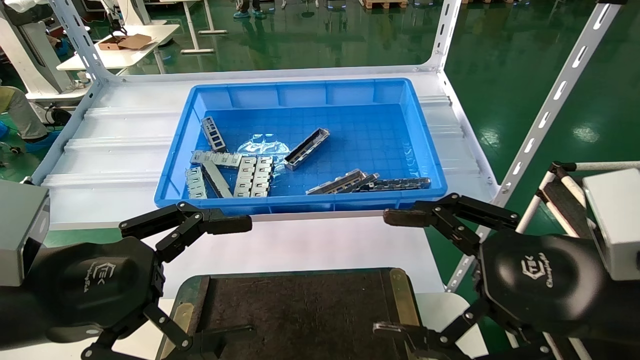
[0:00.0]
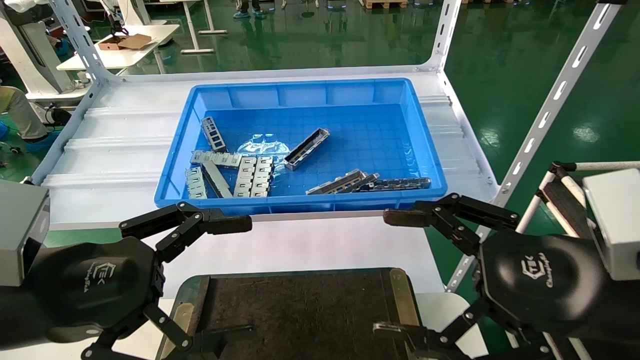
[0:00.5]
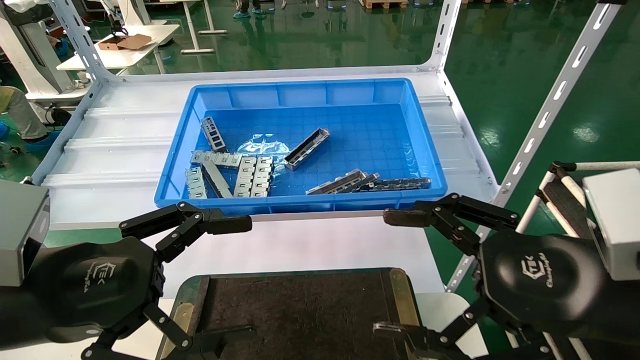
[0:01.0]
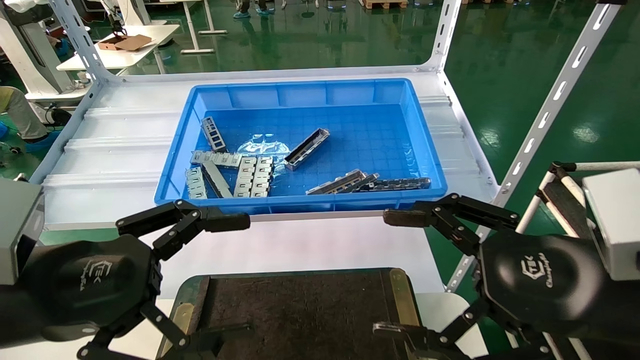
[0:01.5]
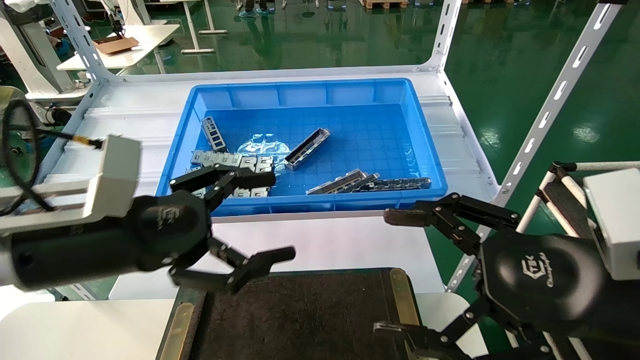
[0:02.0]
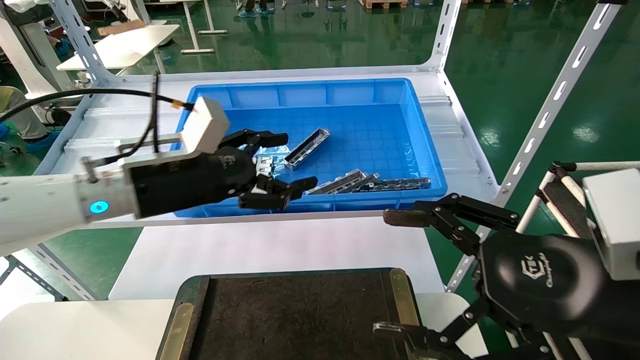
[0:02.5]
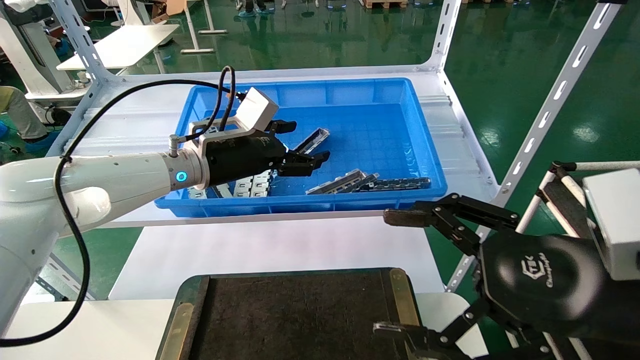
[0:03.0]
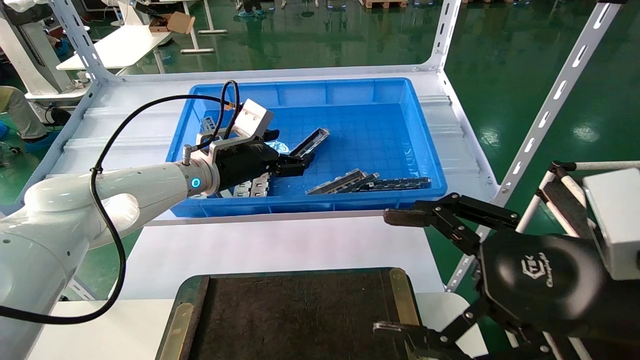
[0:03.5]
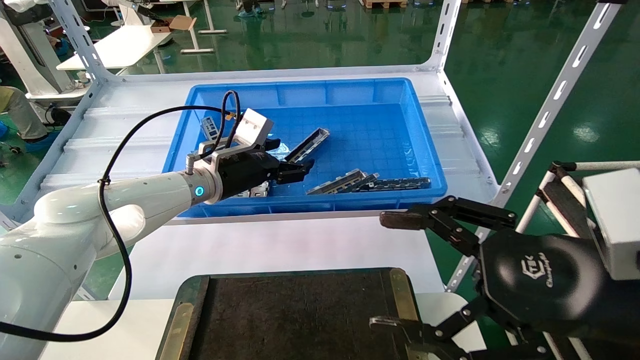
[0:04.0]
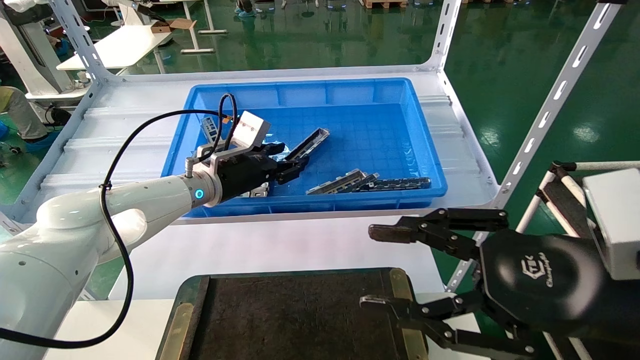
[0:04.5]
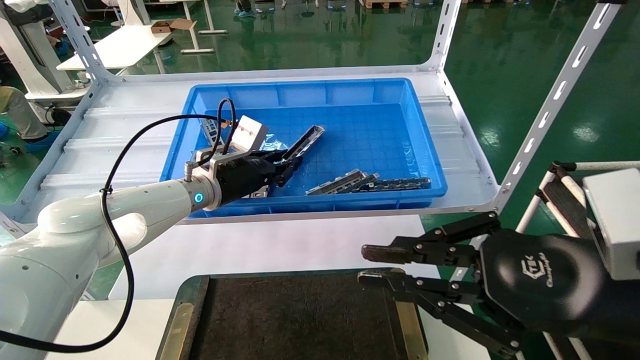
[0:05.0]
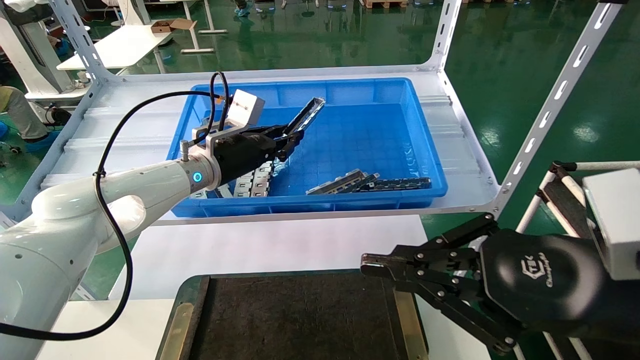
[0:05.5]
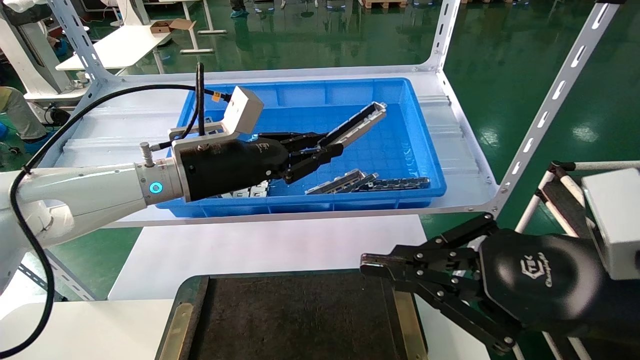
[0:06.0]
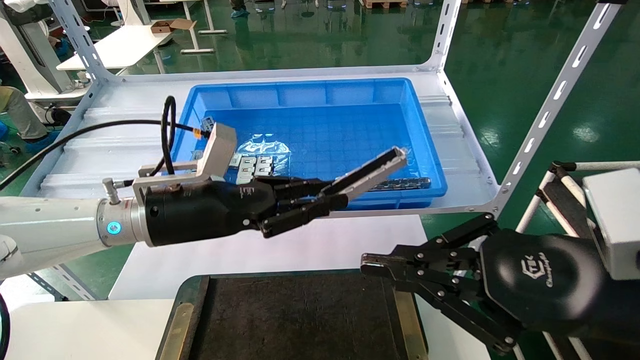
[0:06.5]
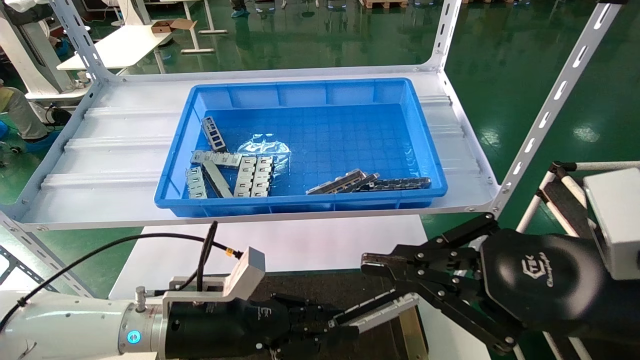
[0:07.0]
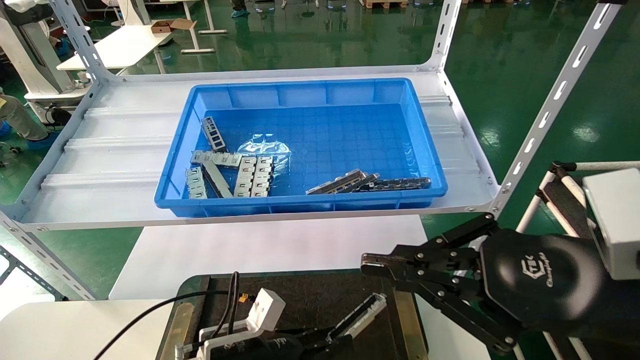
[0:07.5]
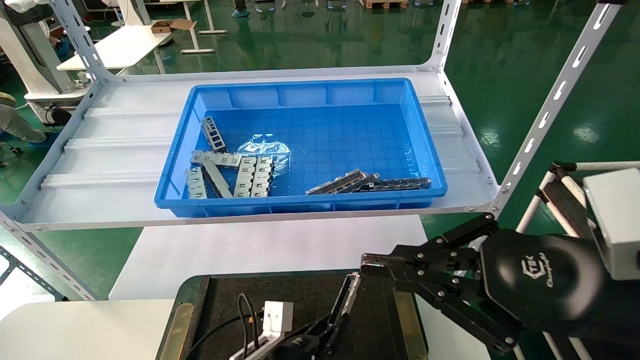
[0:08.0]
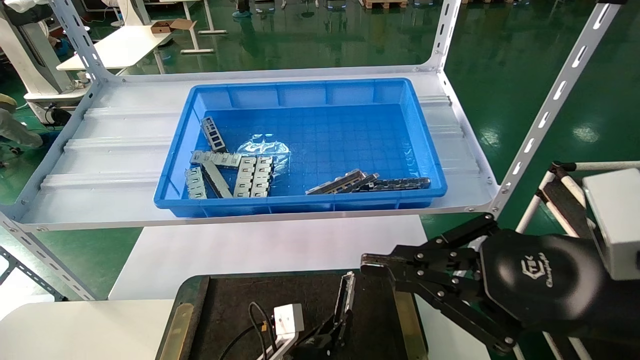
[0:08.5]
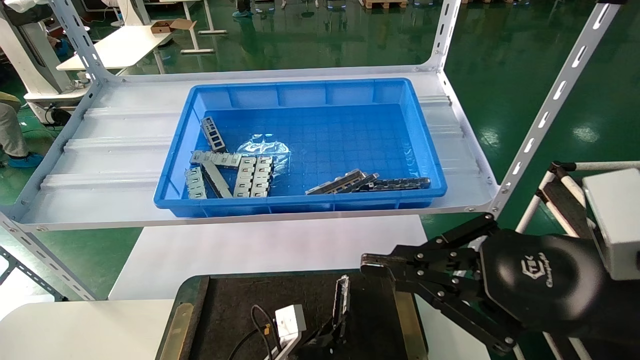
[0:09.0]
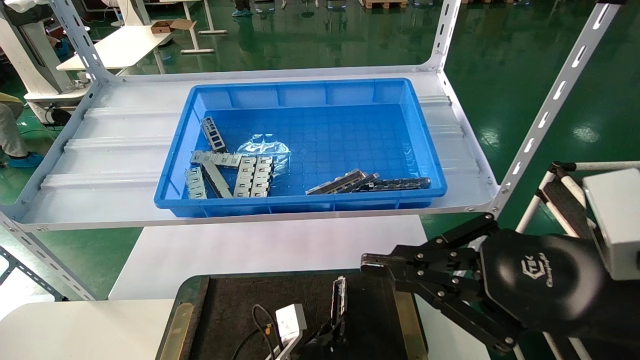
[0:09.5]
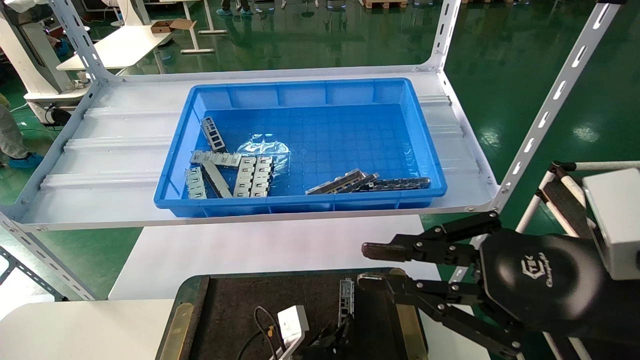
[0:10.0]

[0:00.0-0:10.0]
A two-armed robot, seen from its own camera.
Task of the whole recording: Grasp the part with one hand and place it on the black container.
Step, 0:02.0 to 0:06.0: Pick up the front USB bracket from the feeding area.
0:00.0 to 0:02.0: The left gripper shifts approximately 5 cm forward.
0:02.0 to 0:04.0: The left gripper travels forward by roughly 25 cm.
0:04.0 to 0:06.0: The left gripper goes some 5 cm backward, and closes its fingers. Meanwhile the right gripper closes its fingers.
0:06.0 to 0:08.0: The left gripper goes approximately 35 cm downward.
0:08.0 to 0:10.0: The left gripper travels to the right by roughly 5 cm.

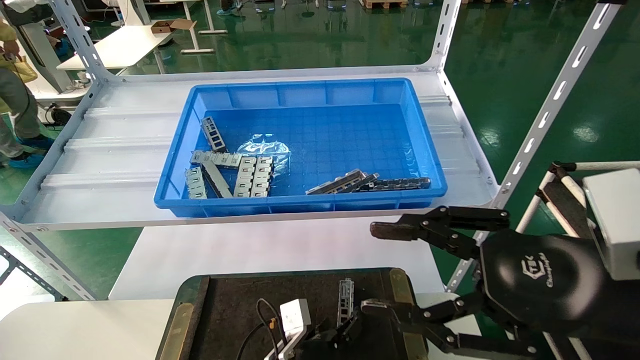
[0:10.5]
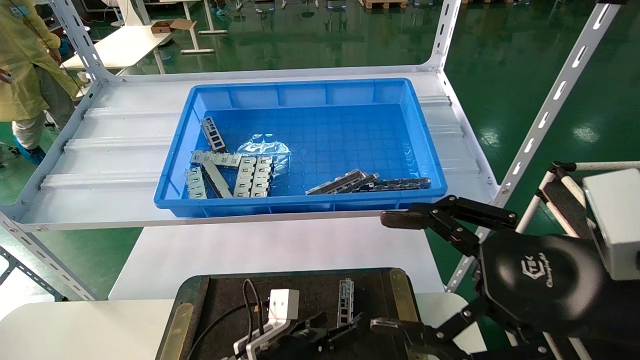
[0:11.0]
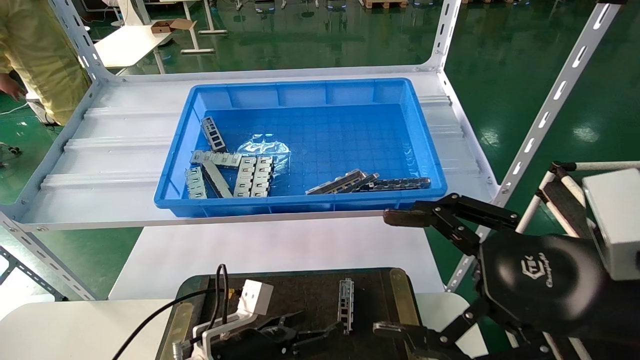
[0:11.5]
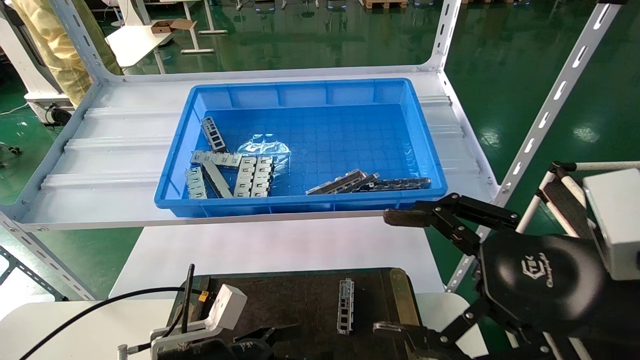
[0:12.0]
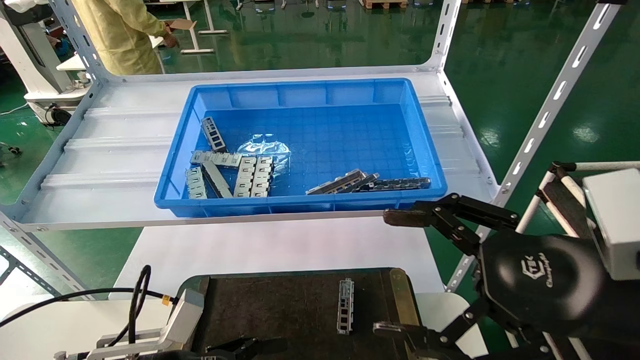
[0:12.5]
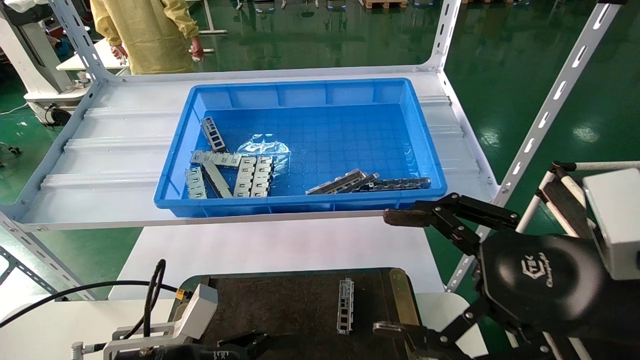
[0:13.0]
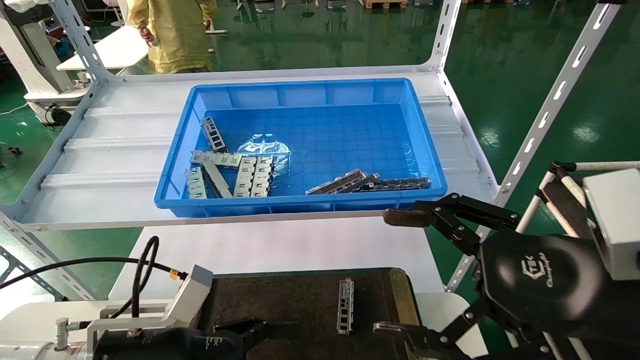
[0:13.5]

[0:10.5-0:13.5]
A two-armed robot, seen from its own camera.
Task of the whole recording: Grasp the part with one hand and place it on the black container.
0:10.5 to 0:12.0: The right gripper opens its fingers. Meanwhile the left gripper moves to the left, upward and backward, some 20 cm, and opens.
0:12.0 to 0:13.5: The left gripper travels upward by some 5 cm.

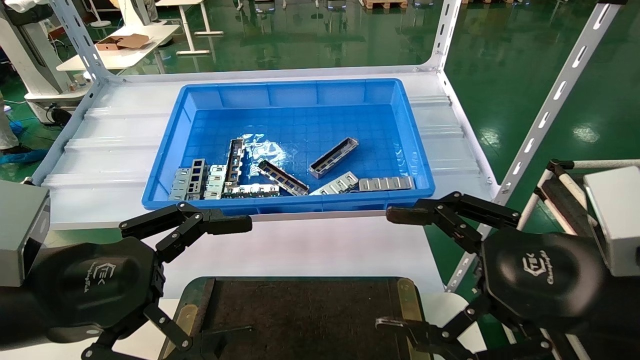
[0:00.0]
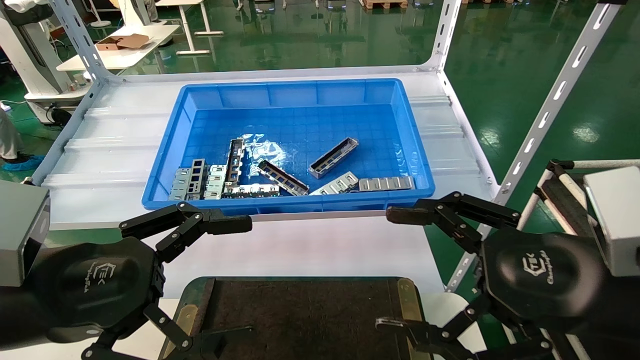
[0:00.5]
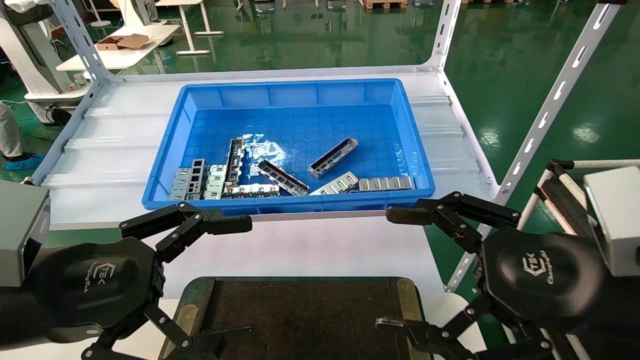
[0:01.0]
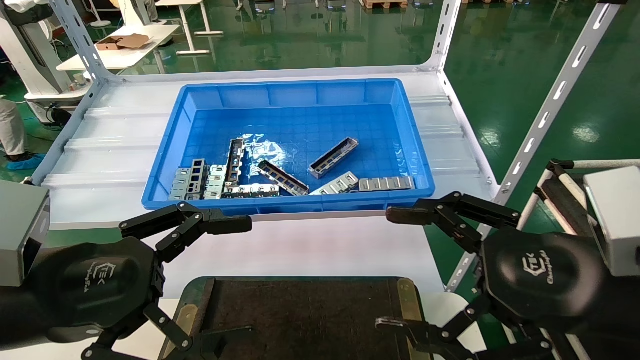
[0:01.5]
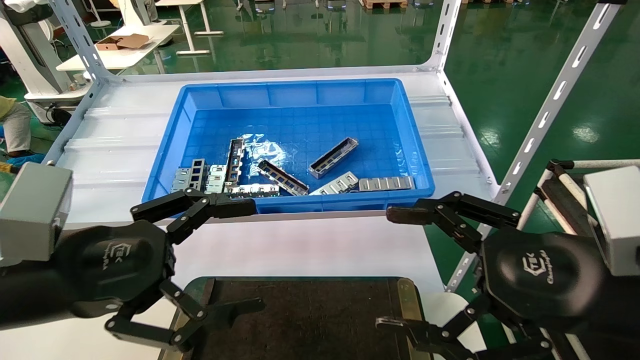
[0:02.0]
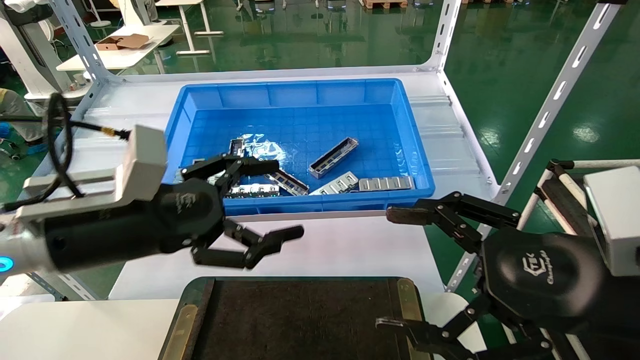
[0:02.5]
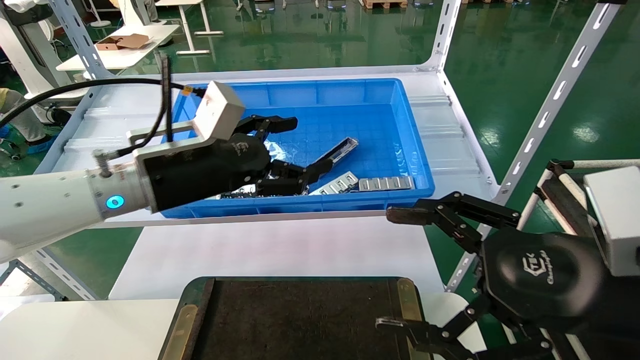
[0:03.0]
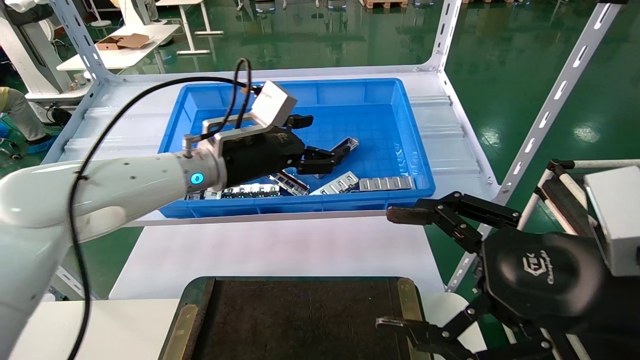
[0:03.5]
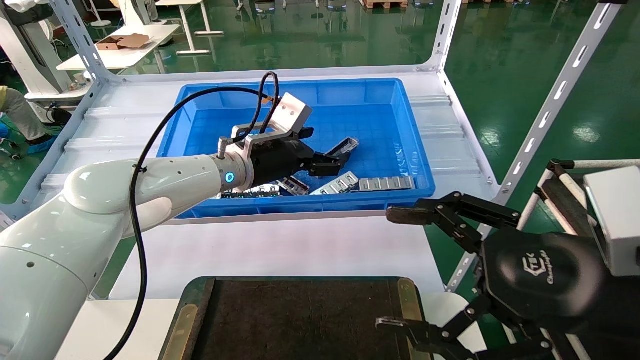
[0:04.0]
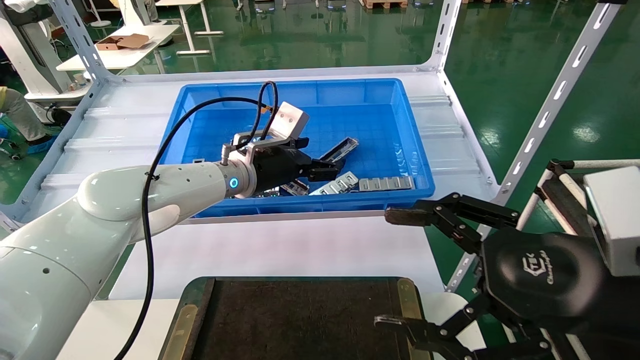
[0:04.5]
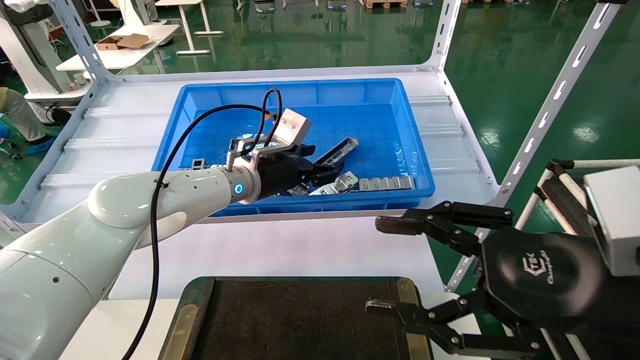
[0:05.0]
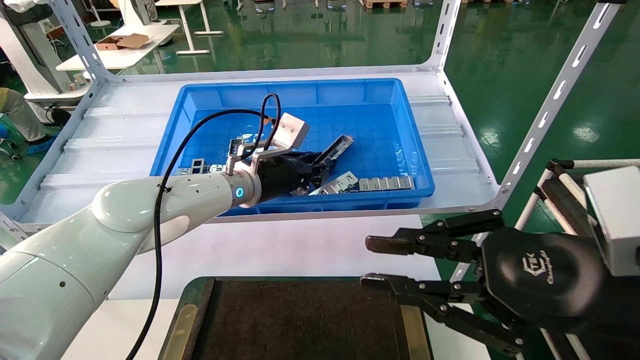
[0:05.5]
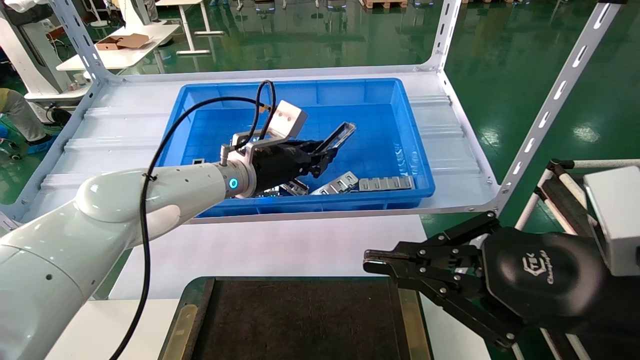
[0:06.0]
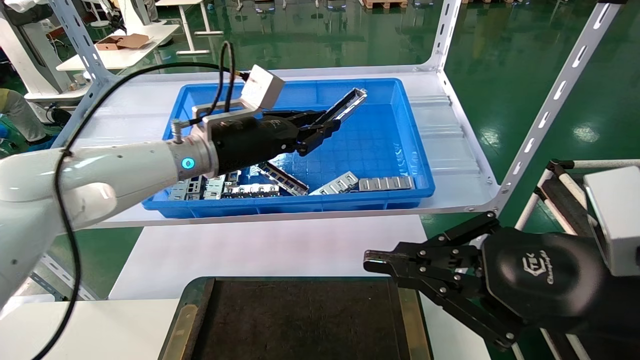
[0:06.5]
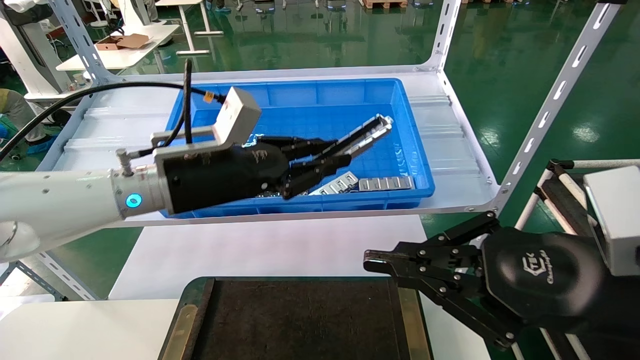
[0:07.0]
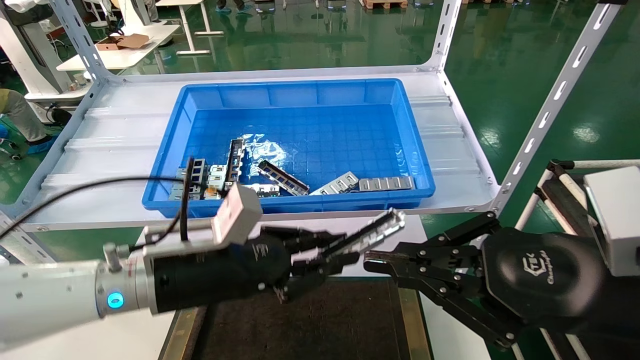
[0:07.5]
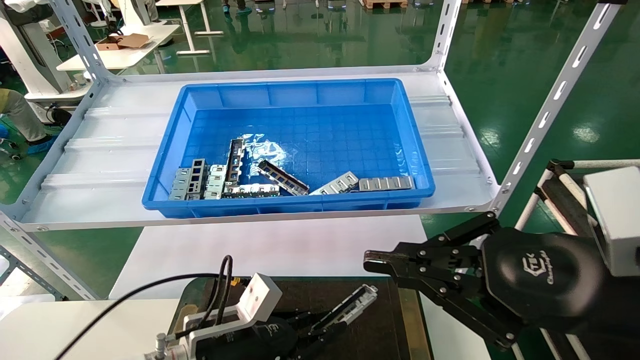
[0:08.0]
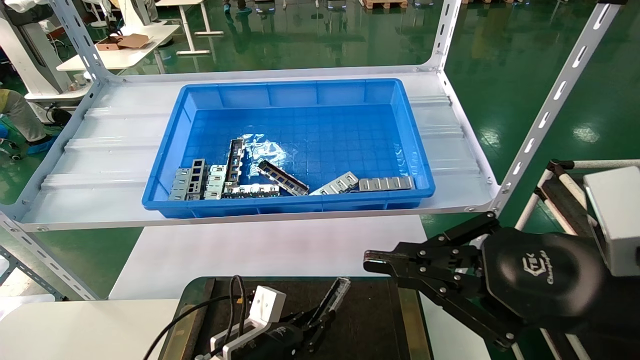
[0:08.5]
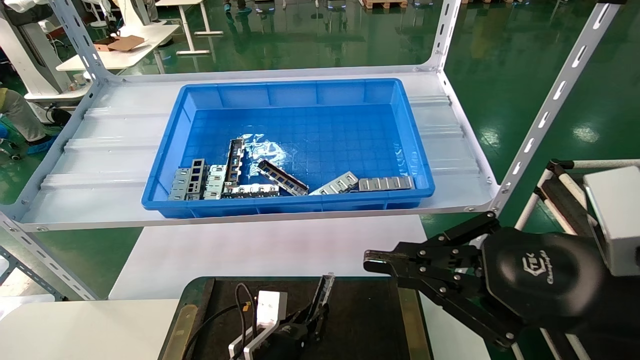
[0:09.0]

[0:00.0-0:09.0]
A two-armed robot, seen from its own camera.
Task of the whole recording: Grasp the part with one hand and place it on the black container.
Step, 0:02.0 to 0:05.5: Pick up the front USB bracket from the feeding area.
0:00.0 to 0:02.0: The grippers move only a little.
0:02.0 to 0:04.5: The left gripper goes roughly 30 cm forward and to the right.
0:04.5 to 0:07.0: The left gripper travels backward and to the left by approximately 15 cm, and closes up. The right gripper closes up.
0:07.0 to 0:09.0: The left gripper moves downward, some 30 cm.
